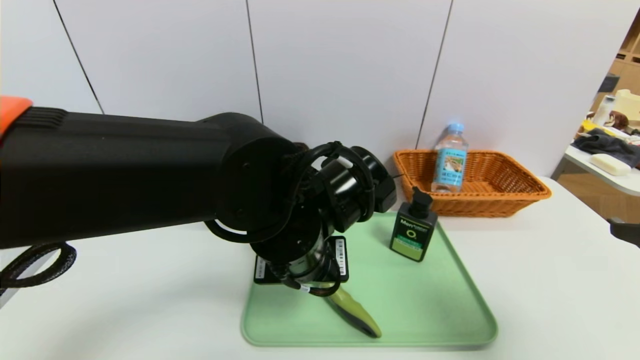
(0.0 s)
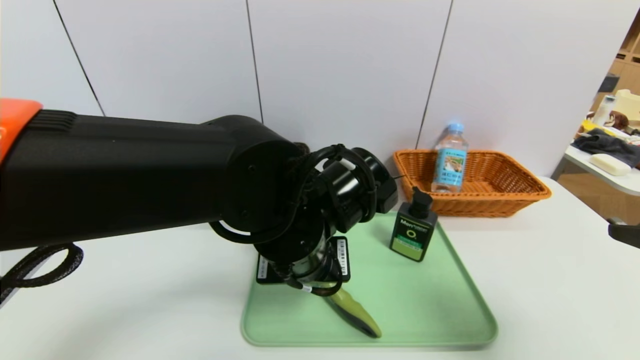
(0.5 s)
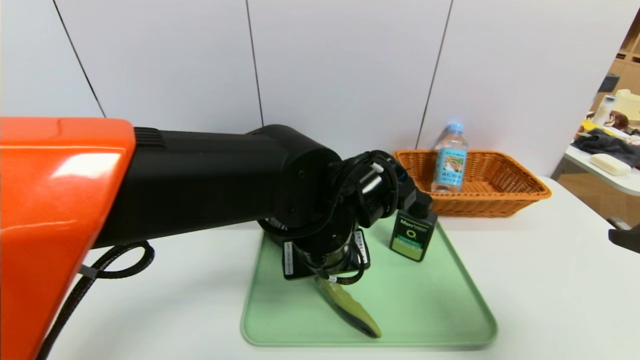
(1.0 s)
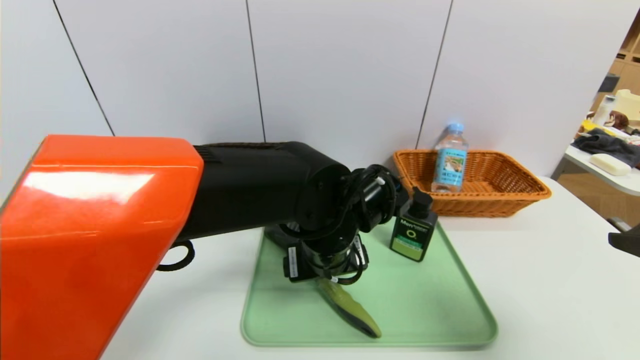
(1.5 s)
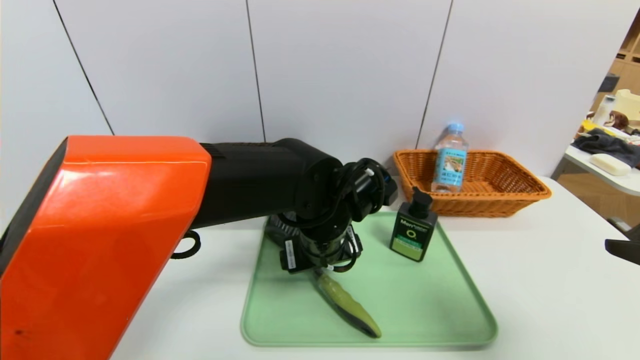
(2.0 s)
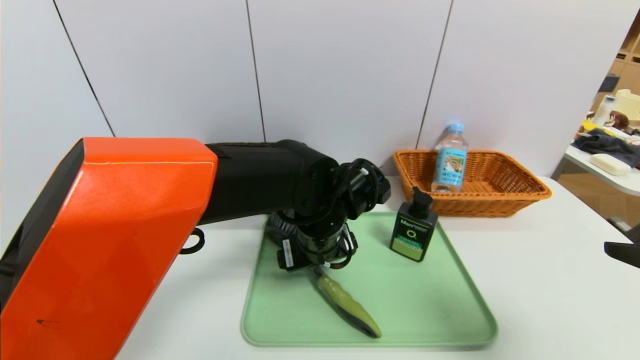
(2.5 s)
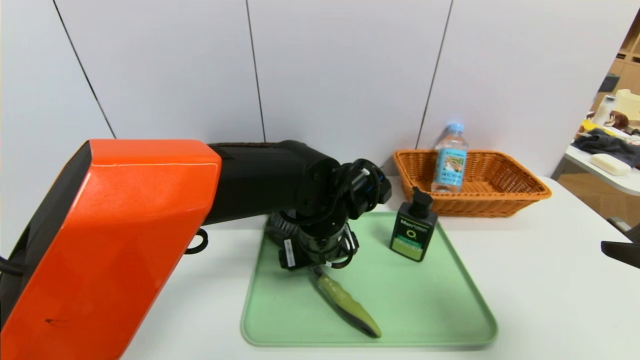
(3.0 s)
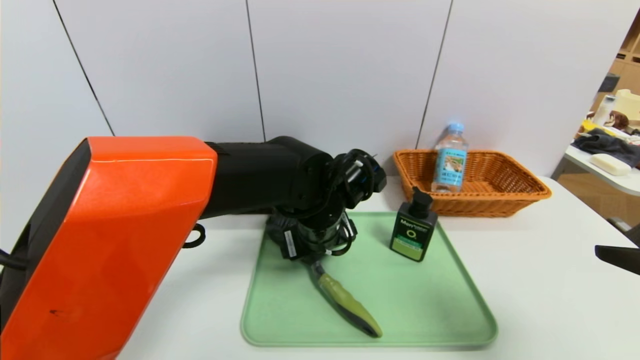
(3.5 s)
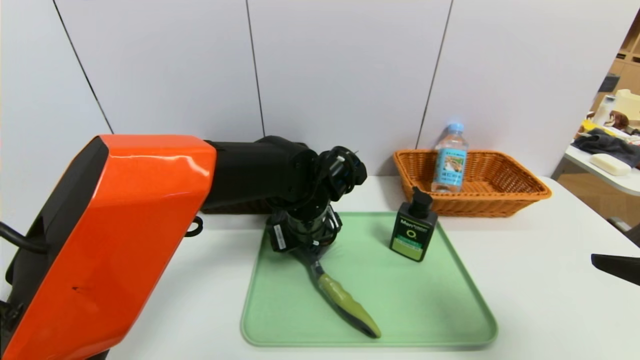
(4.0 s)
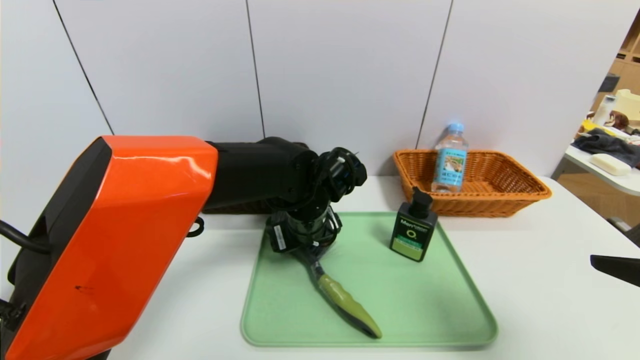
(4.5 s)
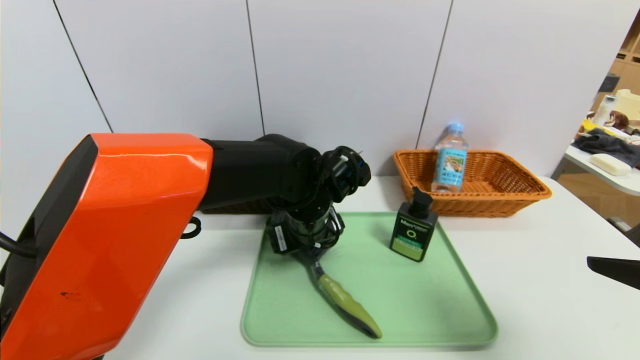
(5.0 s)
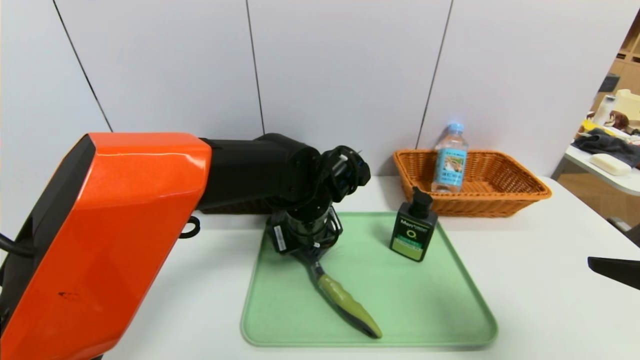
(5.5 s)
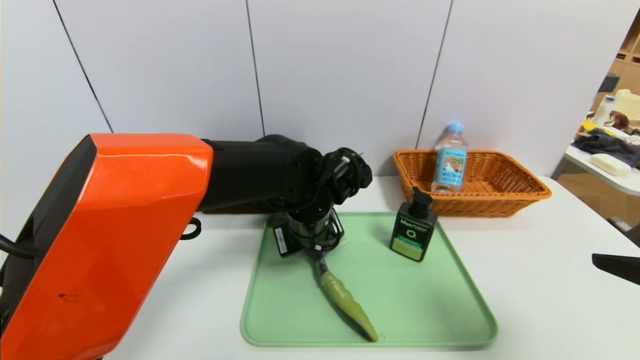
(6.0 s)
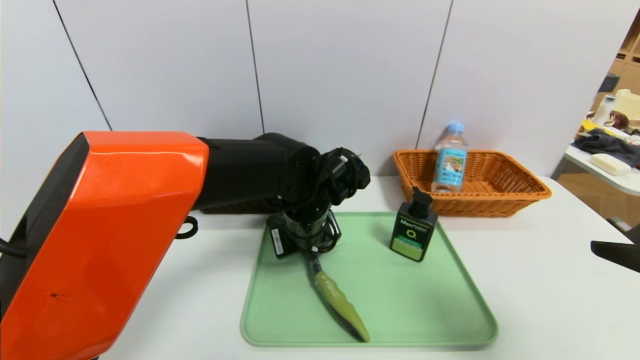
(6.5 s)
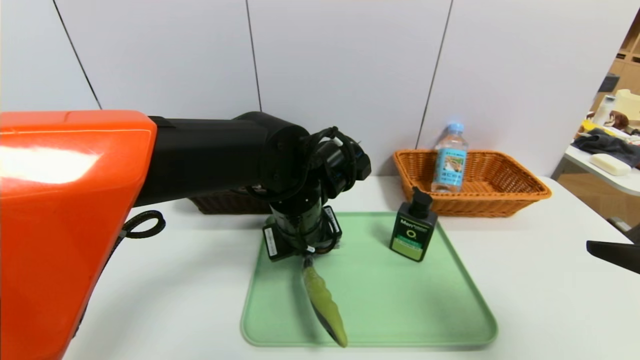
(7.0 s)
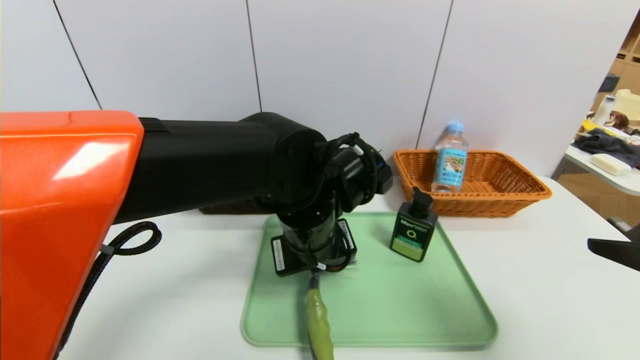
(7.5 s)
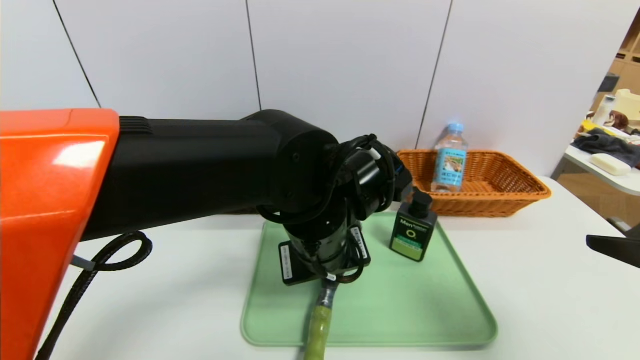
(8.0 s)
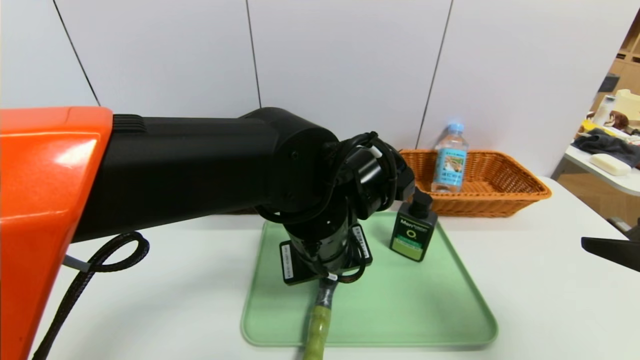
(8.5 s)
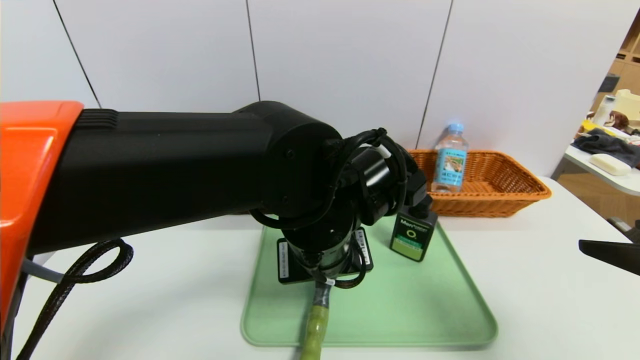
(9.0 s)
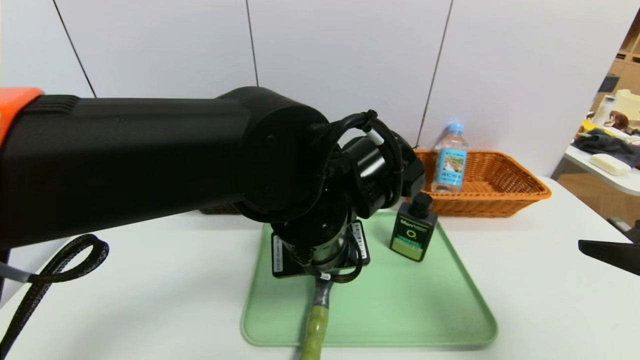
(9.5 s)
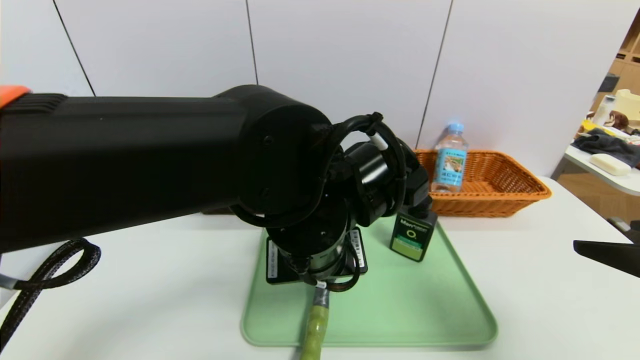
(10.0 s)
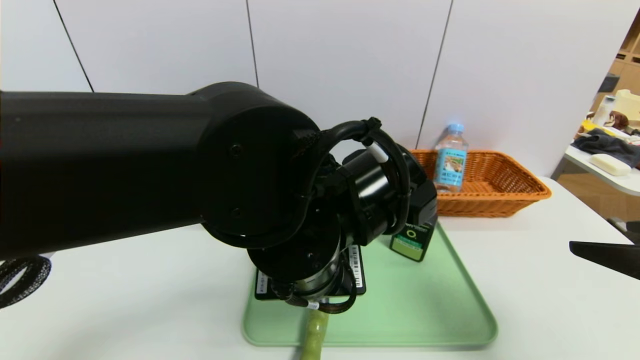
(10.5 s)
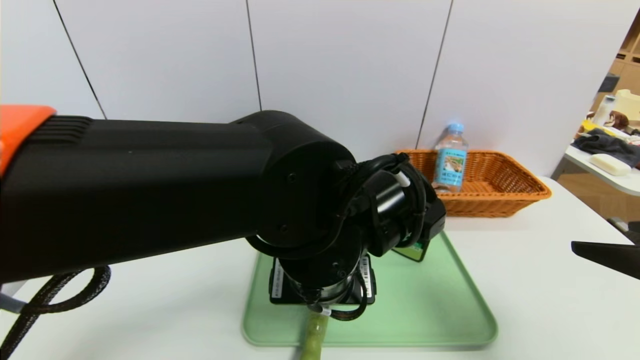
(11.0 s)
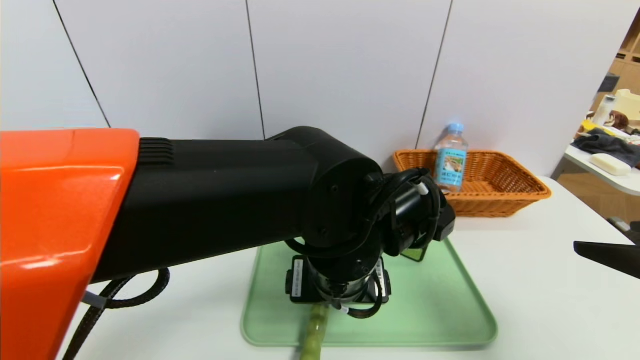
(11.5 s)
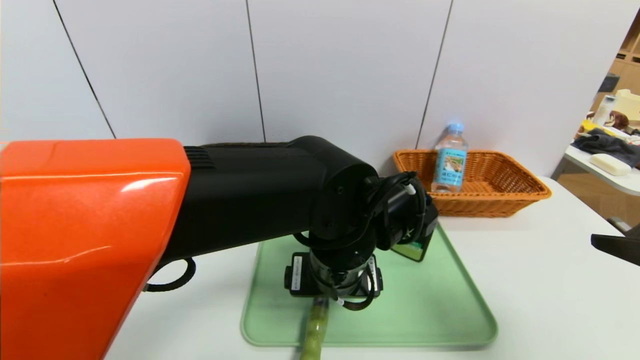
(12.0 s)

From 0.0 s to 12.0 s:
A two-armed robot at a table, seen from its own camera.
Task of the whole recording: place the food in the right basket with the right gripper, and place the non food items in the left basket with the left gripper.
From 0.0 s to 2.0 s: The left gripper moves forward, approximately 5 cm, and opens.
From 2.0 s to 4.0 s: The left gripper moves some 5 cm.
From 4.0 s to 6.0 s: The left gripper closes its fingers.
From 6.0 s to 8.0 s: The left gripper goes some 10 cm backward.
From 8.0 s to 10.0 s: The left gripper opens its fingers.
From 10.0 s to 12.0 s: The left gripper changes place by about 5 cm, and opens.

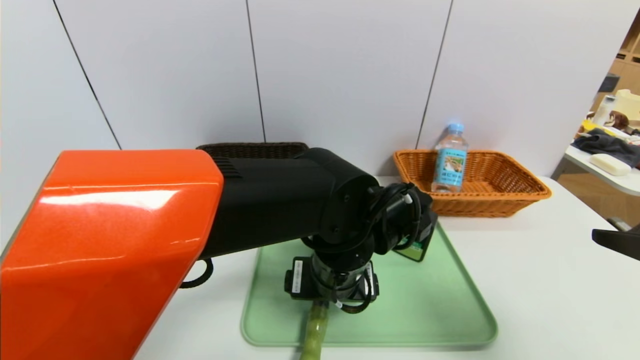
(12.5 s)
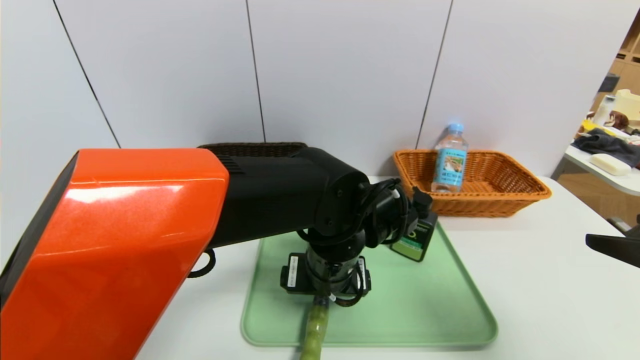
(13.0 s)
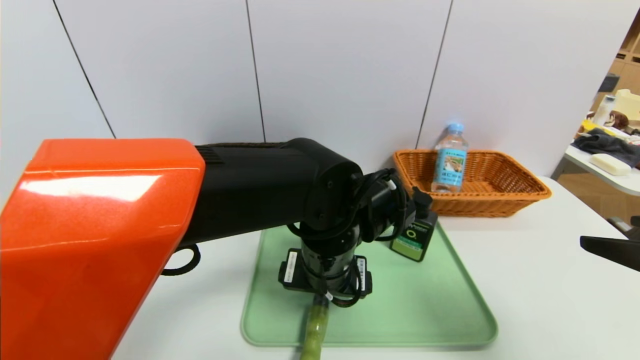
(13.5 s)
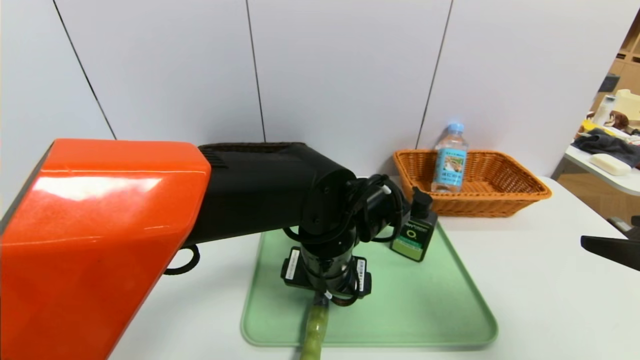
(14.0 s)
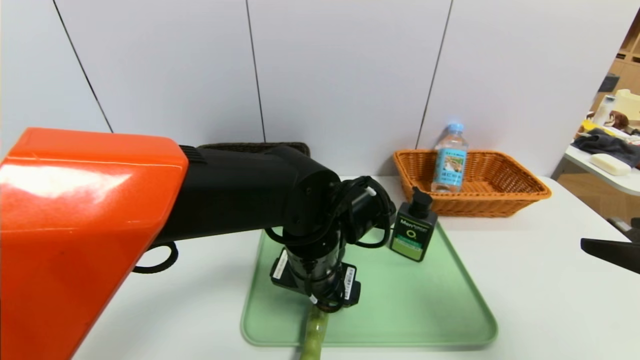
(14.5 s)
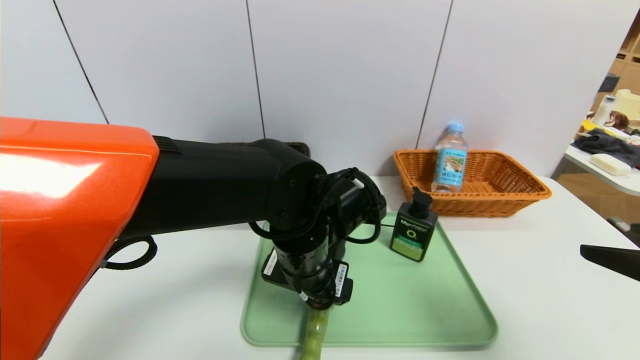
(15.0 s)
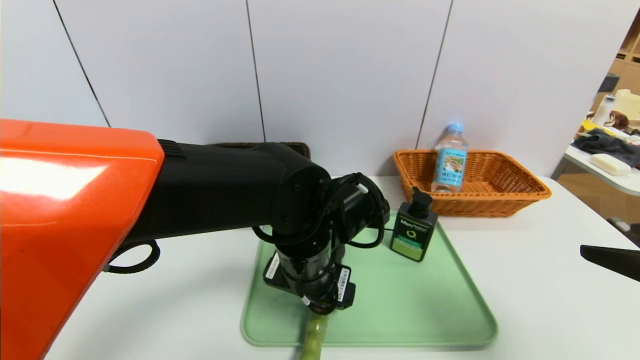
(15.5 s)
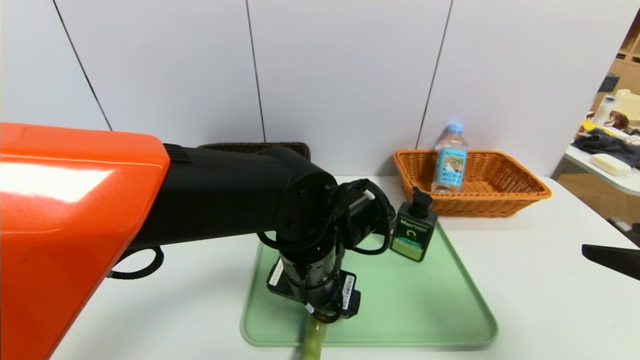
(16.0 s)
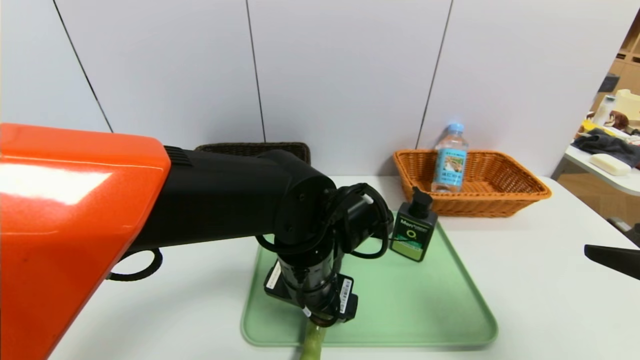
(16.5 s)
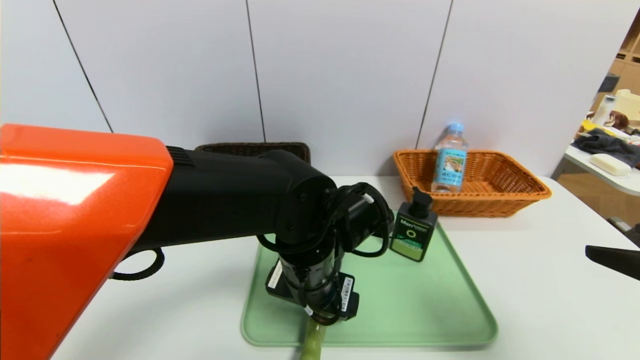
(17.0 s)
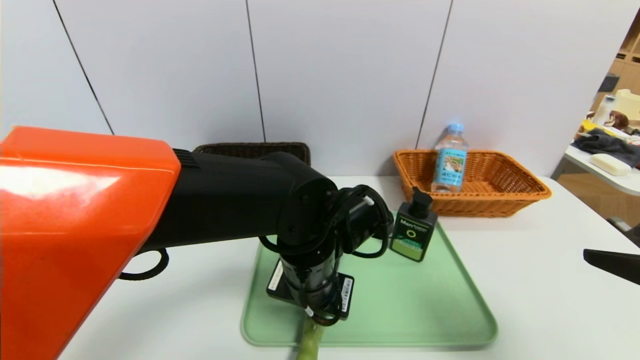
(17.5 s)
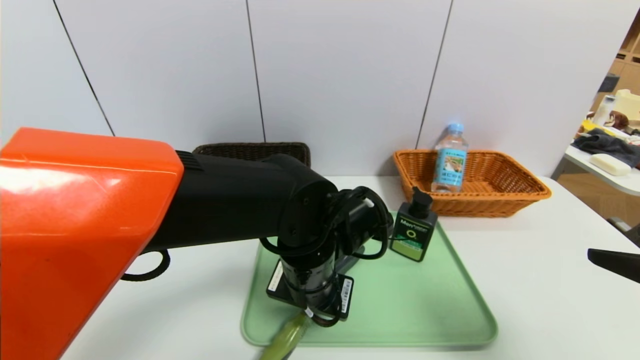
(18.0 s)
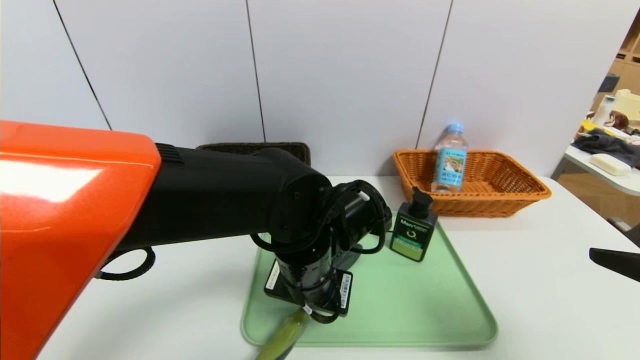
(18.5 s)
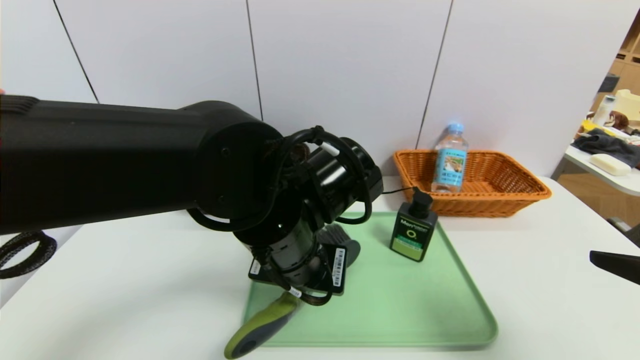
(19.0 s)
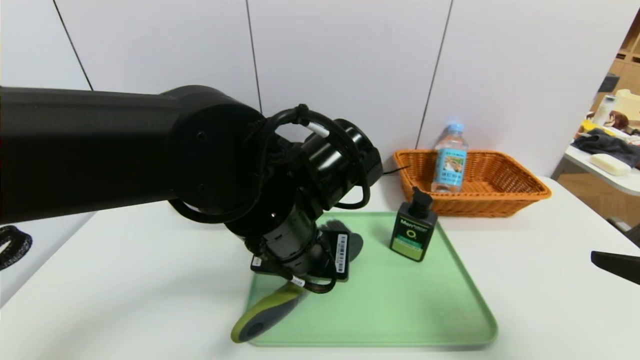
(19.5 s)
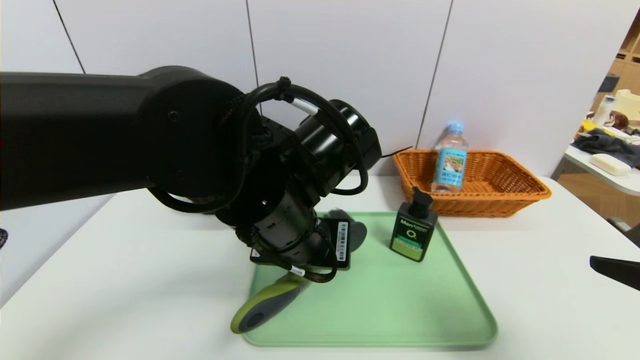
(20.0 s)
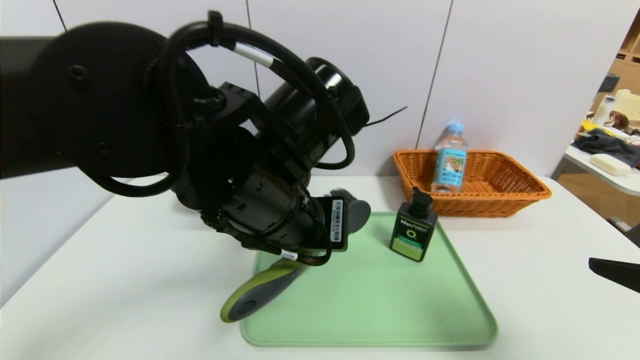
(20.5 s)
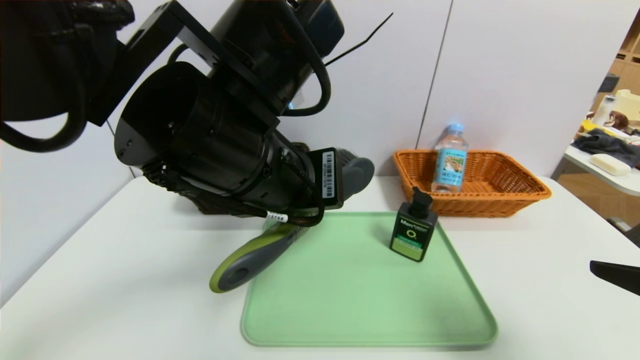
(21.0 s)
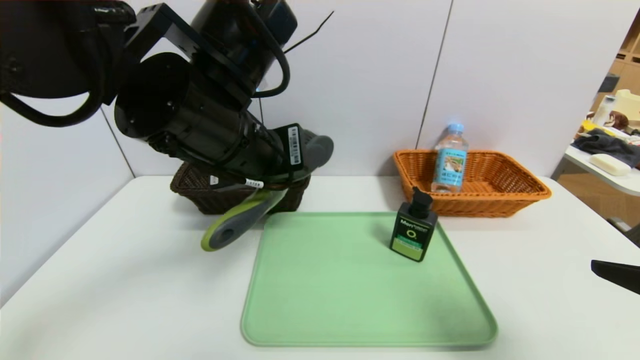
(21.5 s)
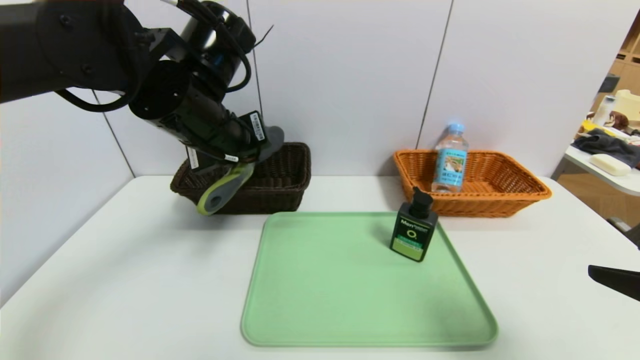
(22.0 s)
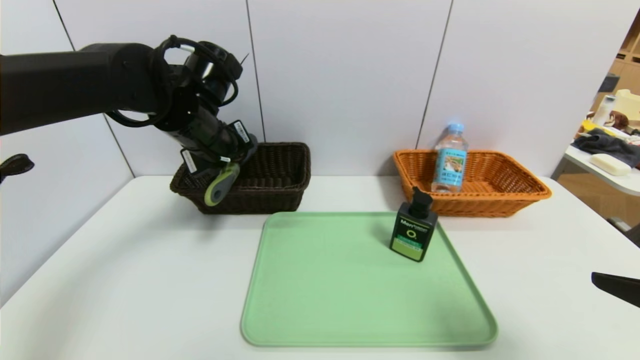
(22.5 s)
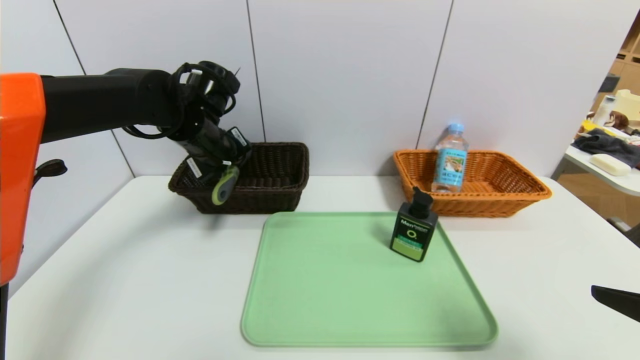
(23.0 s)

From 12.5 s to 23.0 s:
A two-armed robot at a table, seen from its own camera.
Task of the whole recording: place the food in the right basket with the right gripper, and place the non food items in the left basket with the left gripper.
From 12.5 s to 14.5 s: The grippers move only a little.
From 14.5 s to 16.5 s: Neither gripper changes place.
From 16.5 s to 19.0 s: The left gripper travels upward by about 5 cm, and closes its fingers.
From 19.0 s to 21.0 s: The left gripper travels upward by roughly 10 cm.
From 21.0 s to 23.0 s: The left gripper heads forward and to the left, covering about 25 cm.
